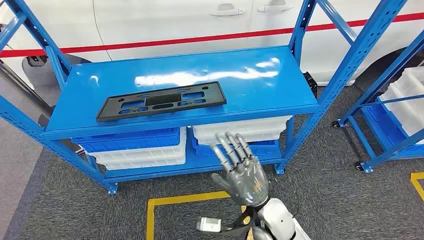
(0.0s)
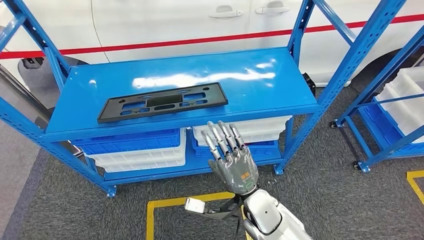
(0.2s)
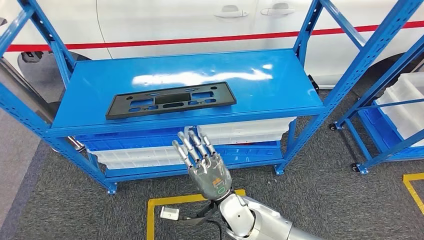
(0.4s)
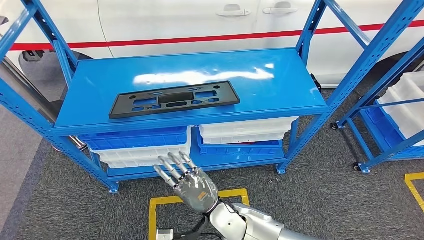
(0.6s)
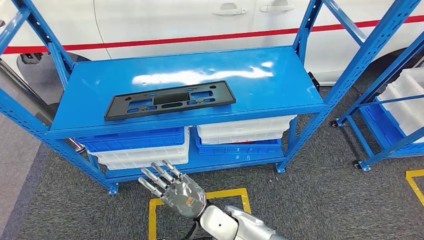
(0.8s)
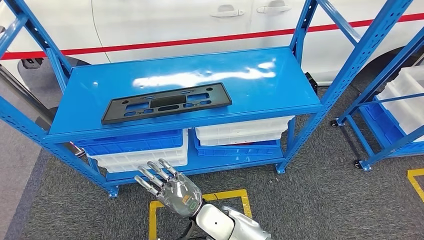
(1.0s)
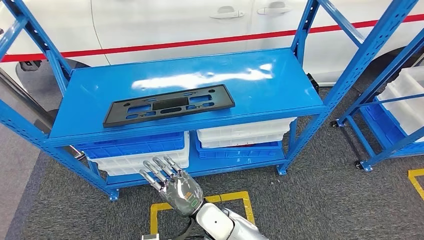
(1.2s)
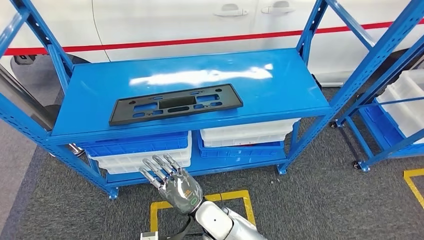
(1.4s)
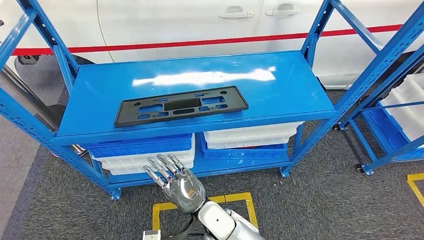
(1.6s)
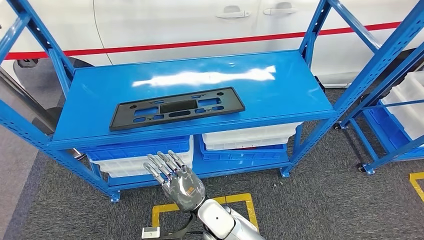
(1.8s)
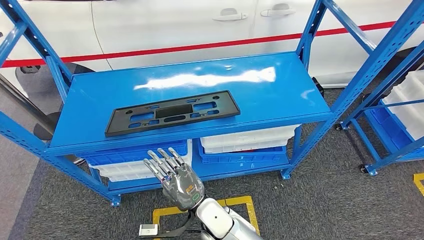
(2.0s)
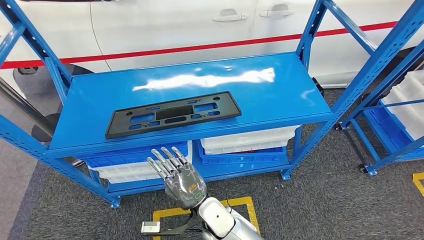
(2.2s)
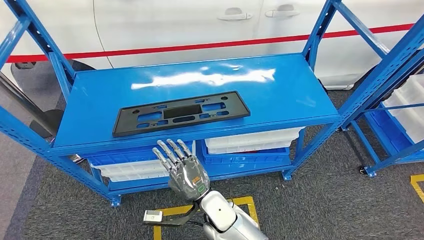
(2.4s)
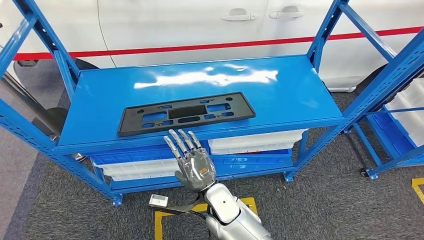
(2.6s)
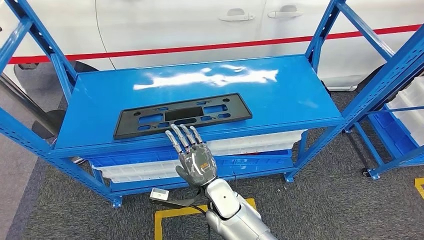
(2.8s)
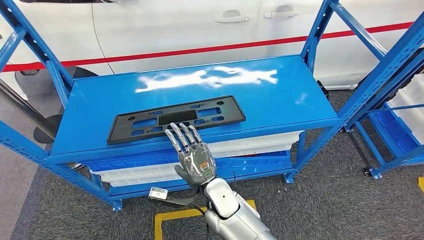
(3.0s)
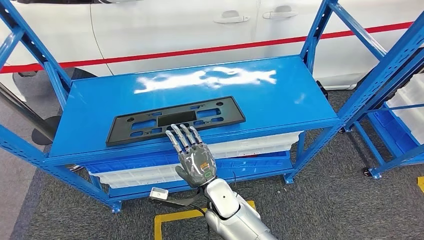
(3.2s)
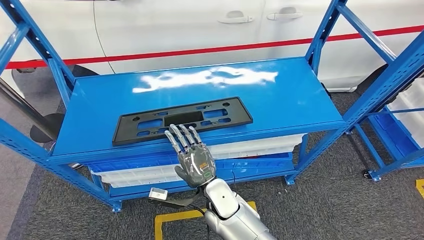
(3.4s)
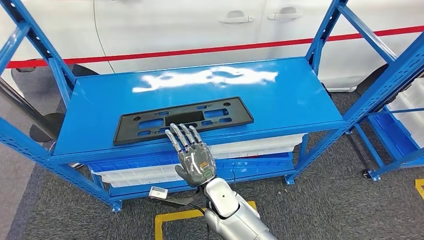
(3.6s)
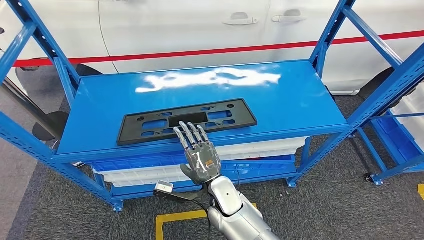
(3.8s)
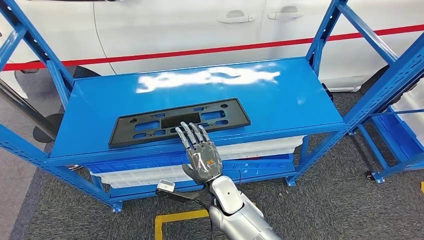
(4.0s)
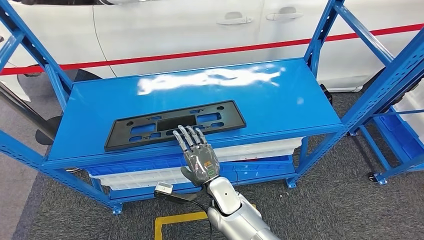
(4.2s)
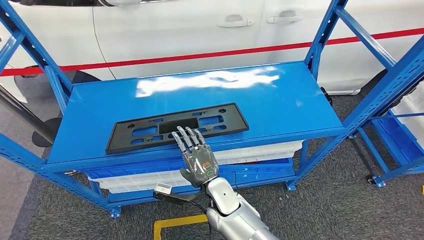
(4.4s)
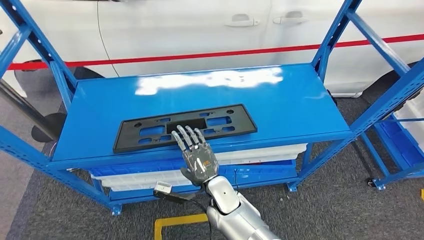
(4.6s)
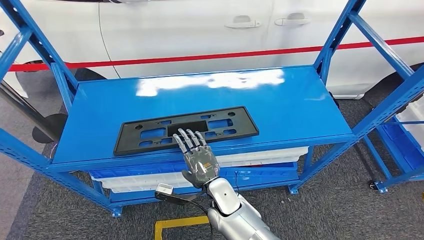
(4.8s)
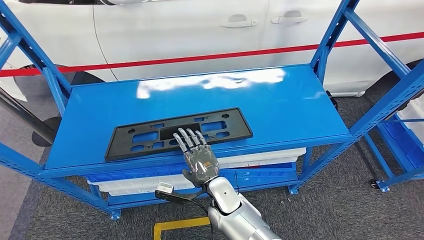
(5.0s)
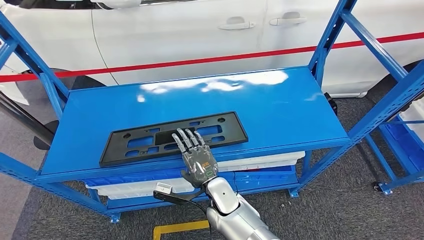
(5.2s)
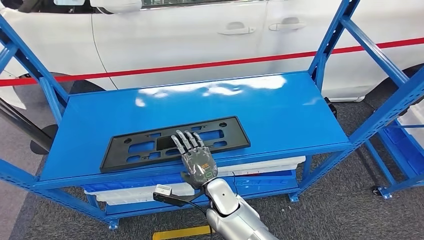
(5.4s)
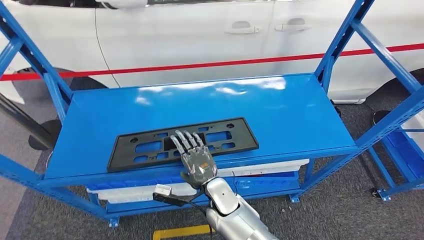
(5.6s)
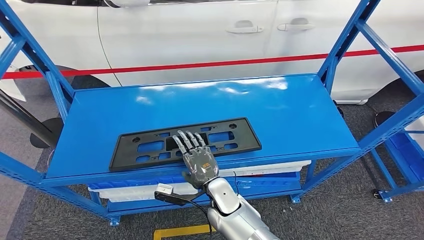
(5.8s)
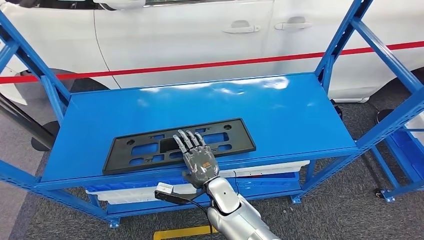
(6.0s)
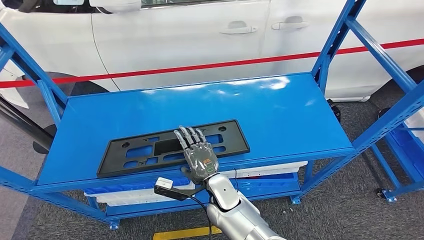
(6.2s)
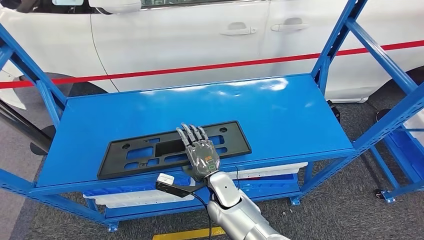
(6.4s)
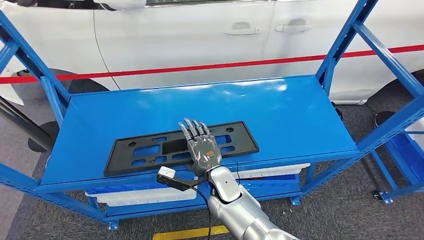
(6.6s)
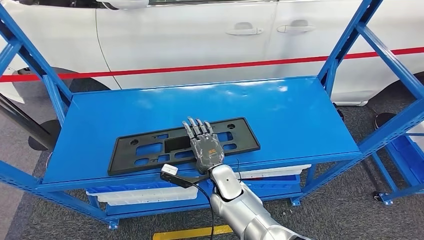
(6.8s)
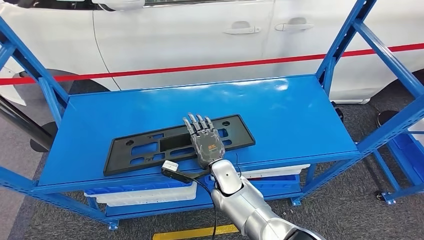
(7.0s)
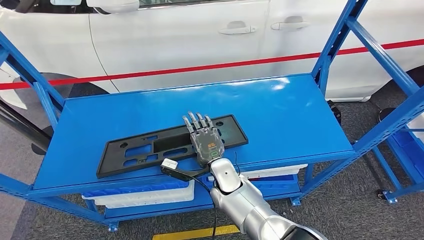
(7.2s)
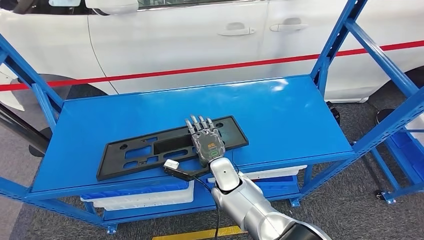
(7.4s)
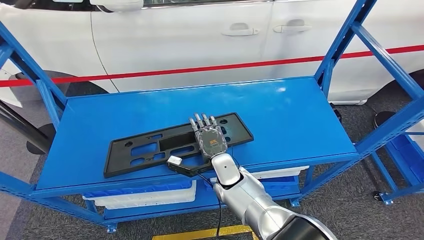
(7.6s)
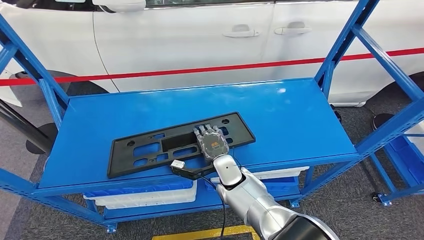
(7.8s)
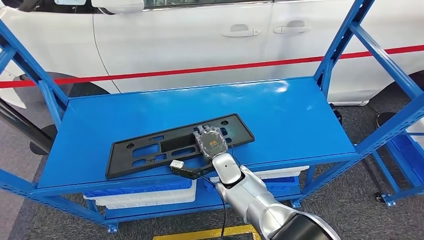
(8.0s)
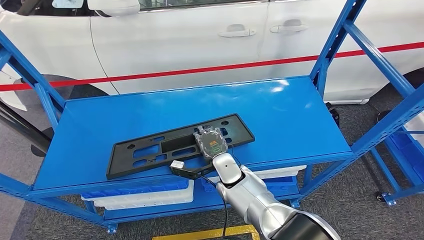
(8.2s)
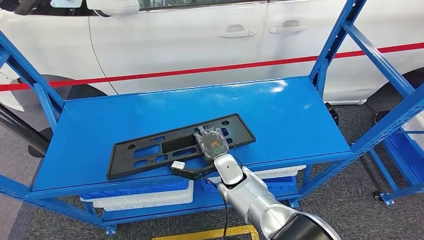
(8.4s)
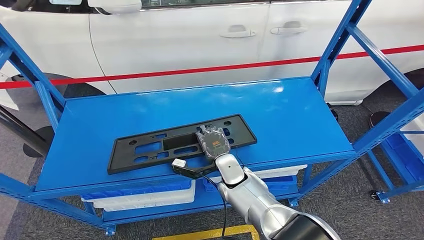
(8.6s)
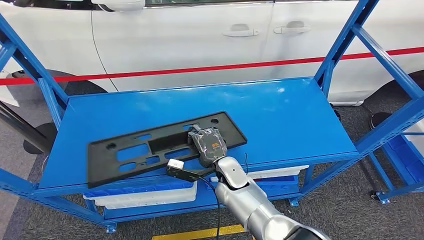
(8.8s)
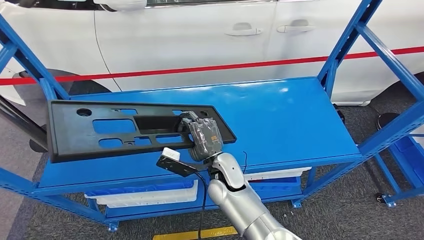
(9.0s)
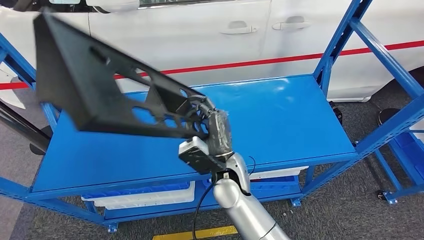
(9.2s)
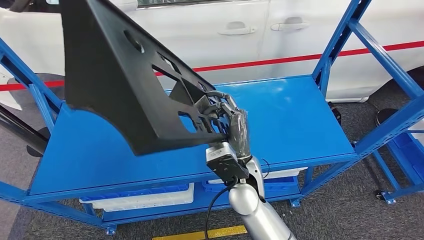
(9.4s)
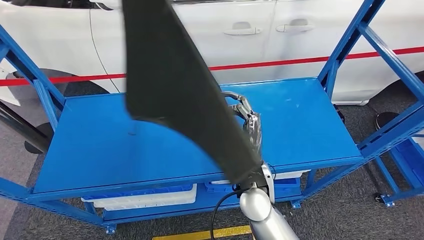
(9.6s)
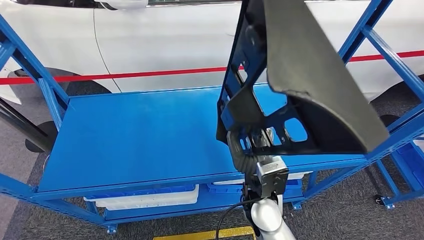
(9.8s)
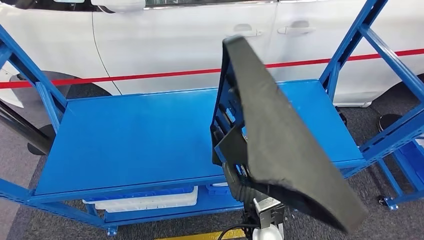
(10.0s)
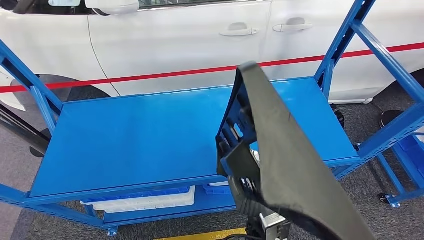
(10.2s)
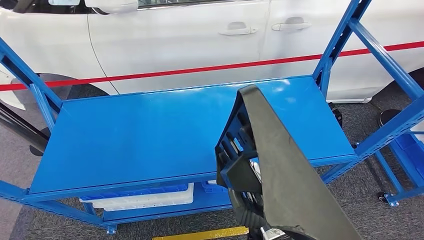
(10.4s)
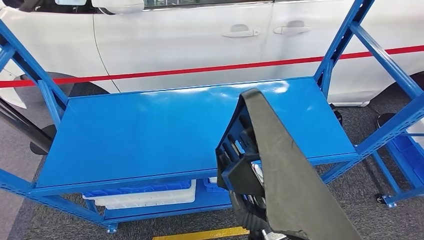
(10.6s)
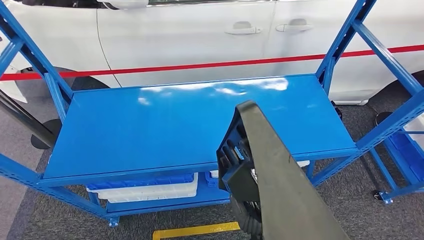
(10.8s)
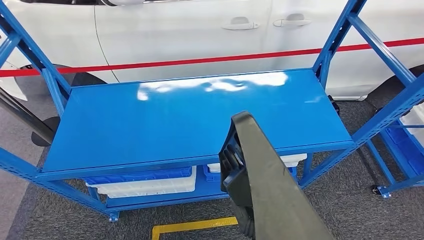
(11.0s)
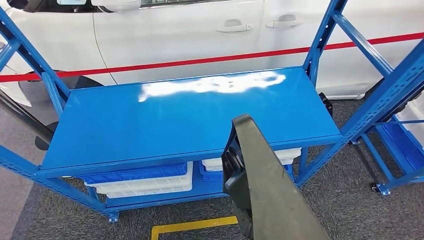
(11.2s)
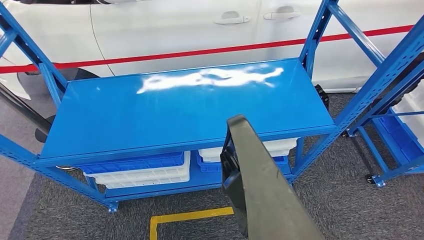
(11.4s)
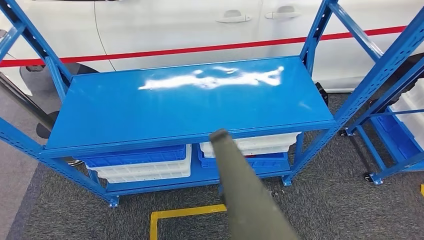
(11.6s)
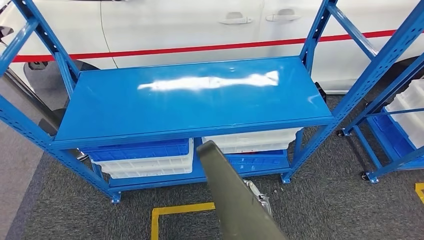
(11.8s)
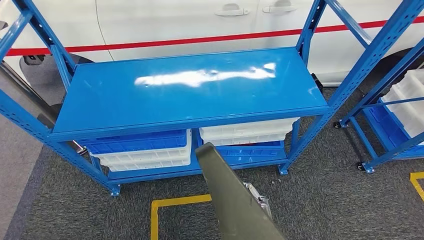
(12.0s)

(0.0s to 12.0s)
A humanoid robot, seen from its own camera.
Step, 0.0s - 12.0s: Pick up the large material from the shelf.

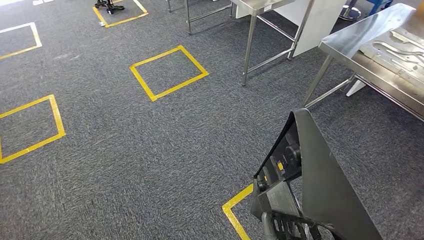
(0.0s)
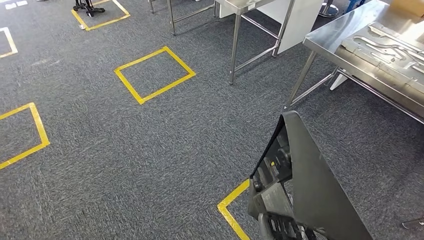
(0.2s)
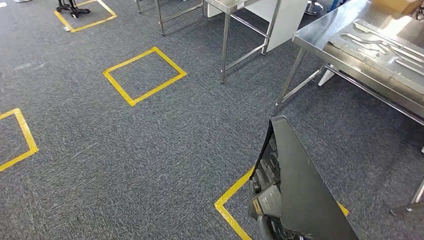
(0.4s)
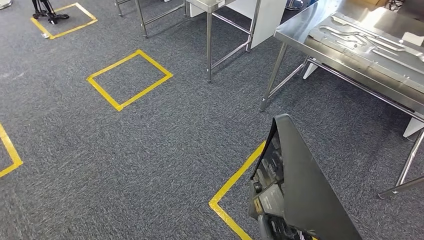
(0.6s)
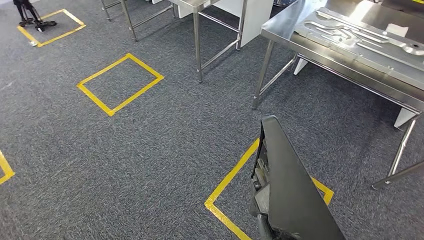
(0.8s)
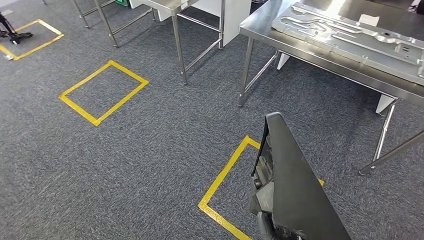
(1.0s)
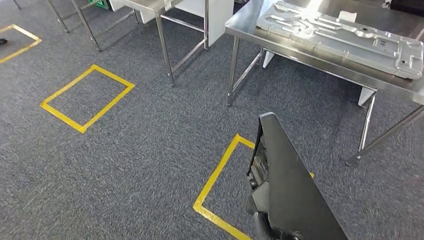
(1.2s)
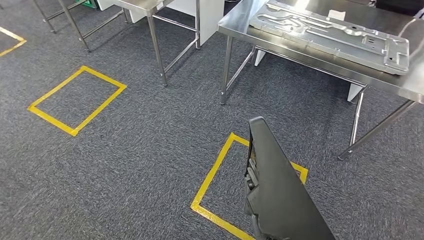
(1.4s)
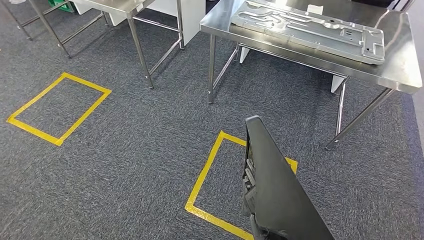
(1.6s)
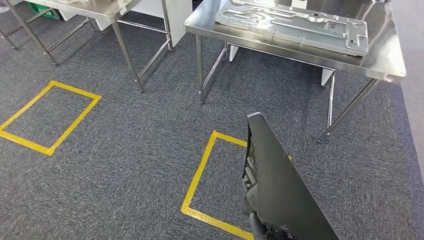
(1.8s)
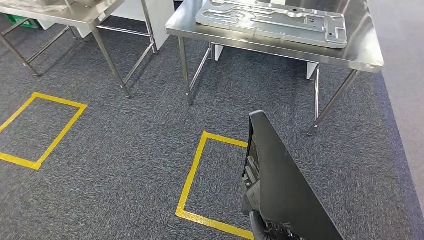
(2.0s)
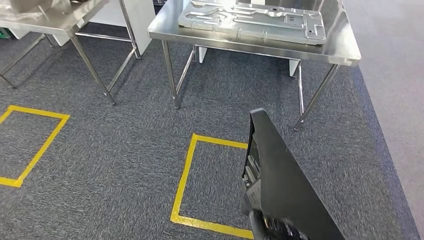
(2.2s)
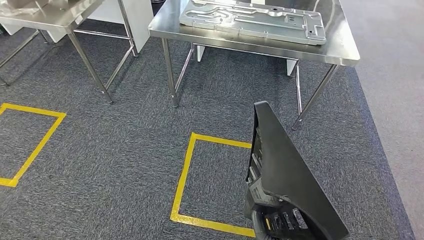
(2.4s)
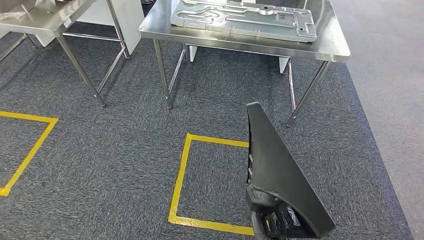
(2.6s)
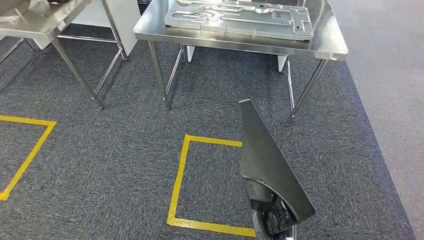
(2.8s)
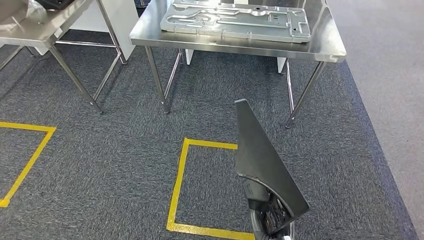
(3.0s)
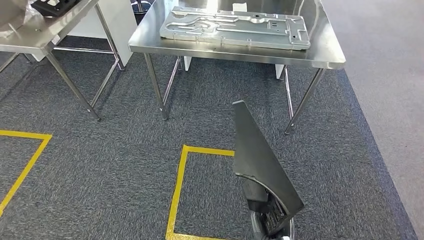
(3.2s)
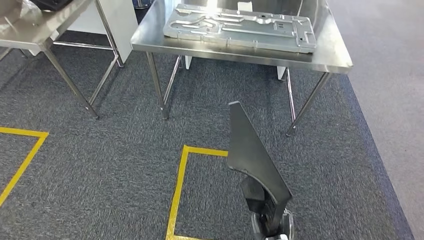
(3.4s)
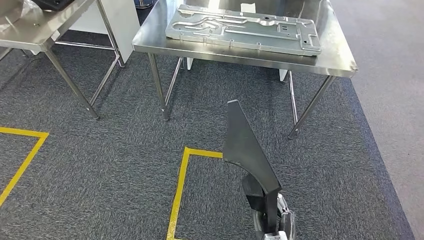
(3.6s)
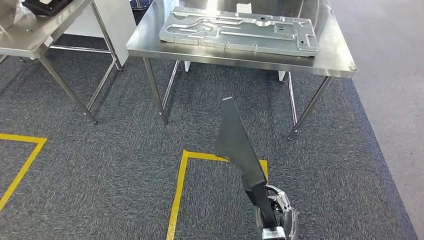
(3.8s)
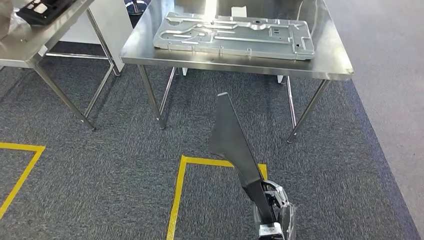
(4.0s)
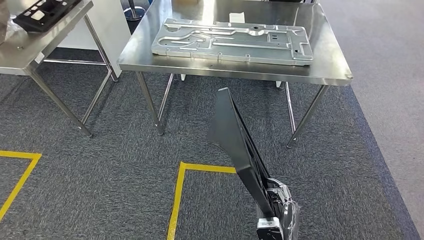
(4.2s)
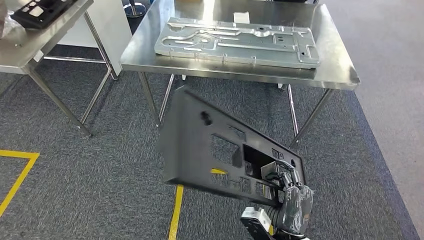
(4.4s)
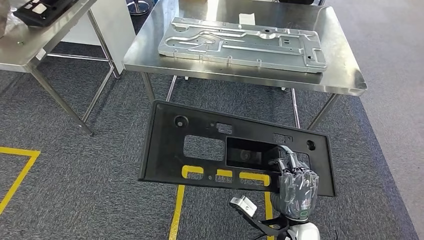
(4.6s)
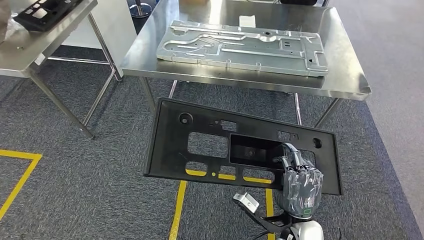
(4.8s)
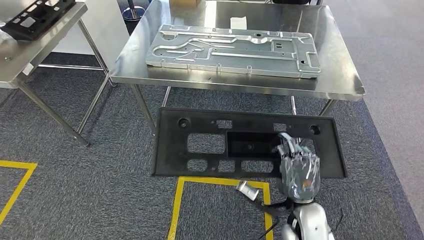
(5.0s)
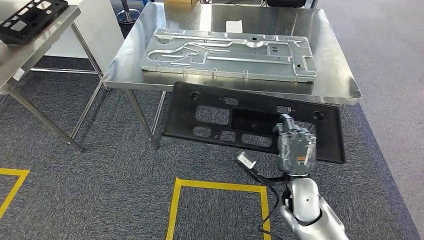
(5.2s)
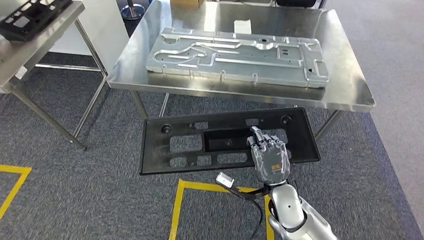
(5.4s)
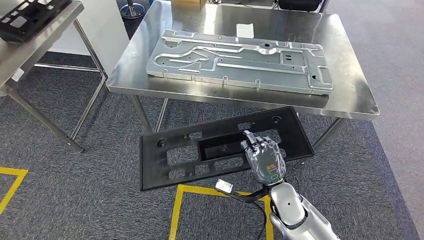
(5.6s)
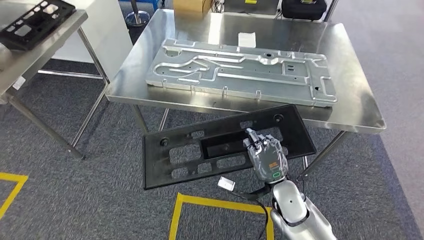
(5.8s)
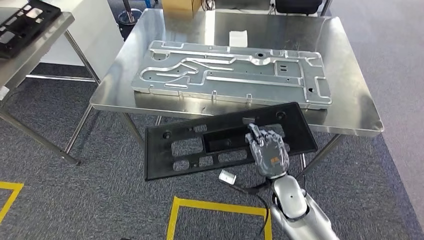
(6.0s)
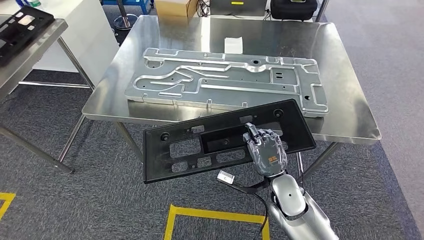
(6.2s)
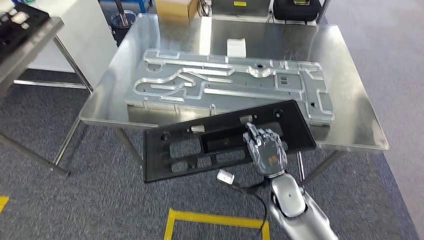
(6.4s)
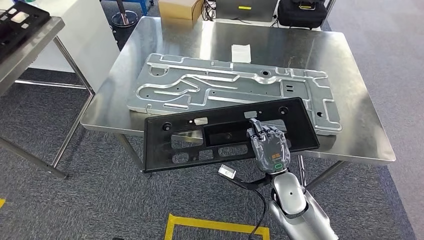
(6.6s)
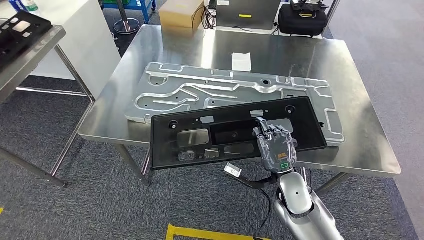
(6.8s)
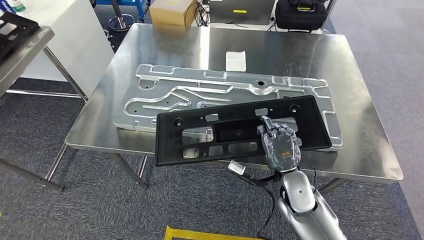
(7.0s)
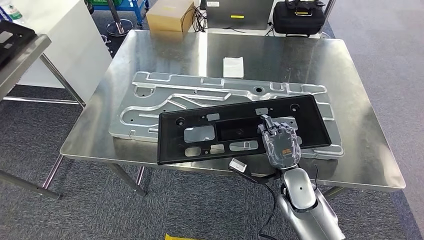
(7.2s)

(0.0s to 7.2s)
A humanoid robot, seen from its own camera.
Step, 0.0s - 6.6s: Move the large material to the workbench.
